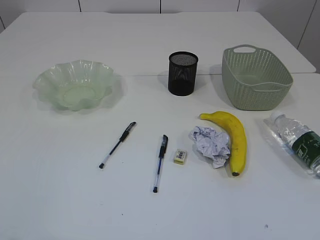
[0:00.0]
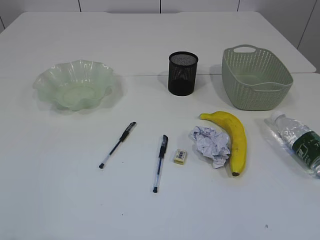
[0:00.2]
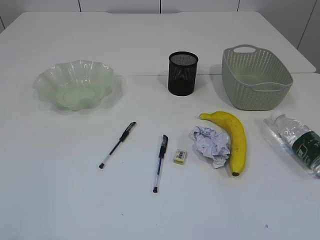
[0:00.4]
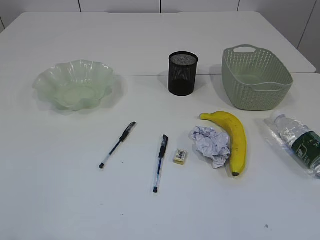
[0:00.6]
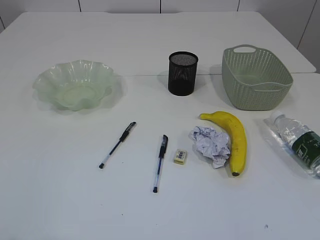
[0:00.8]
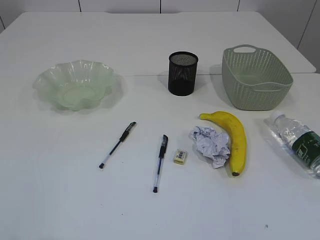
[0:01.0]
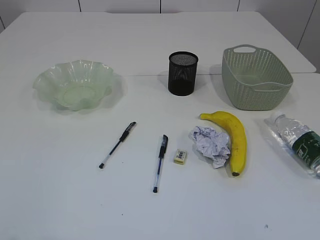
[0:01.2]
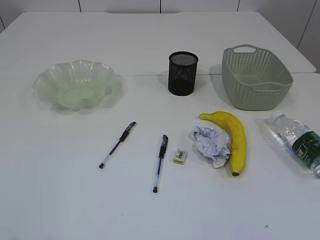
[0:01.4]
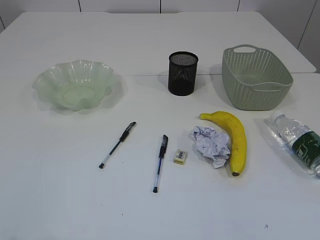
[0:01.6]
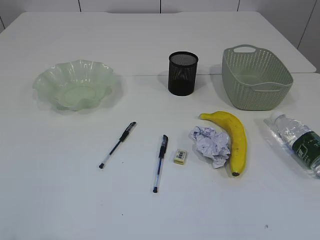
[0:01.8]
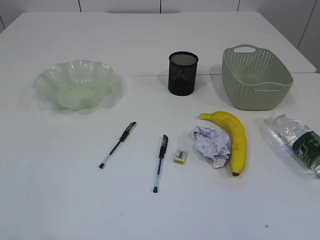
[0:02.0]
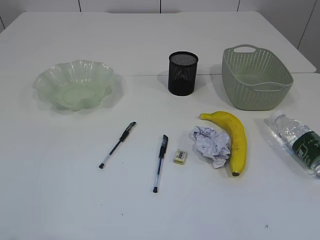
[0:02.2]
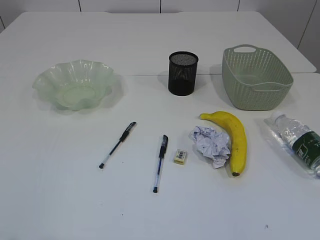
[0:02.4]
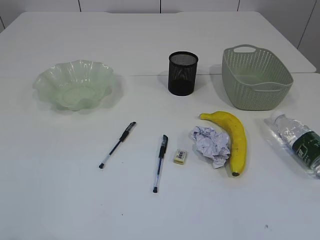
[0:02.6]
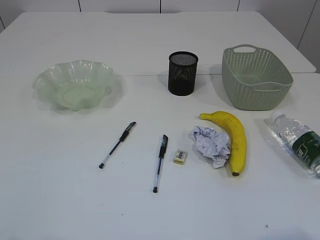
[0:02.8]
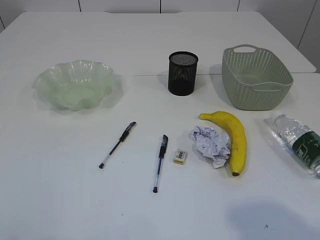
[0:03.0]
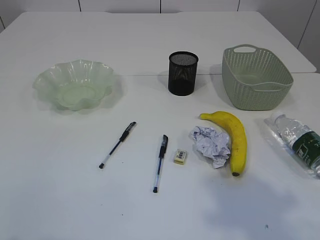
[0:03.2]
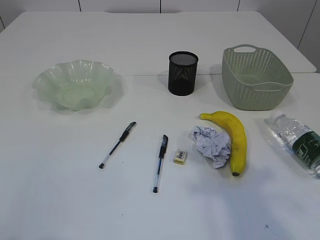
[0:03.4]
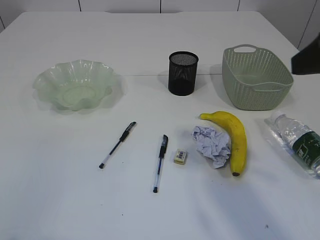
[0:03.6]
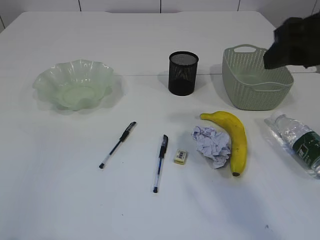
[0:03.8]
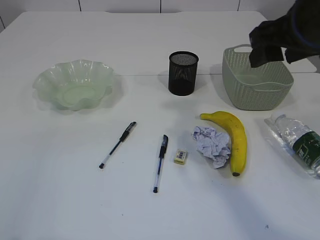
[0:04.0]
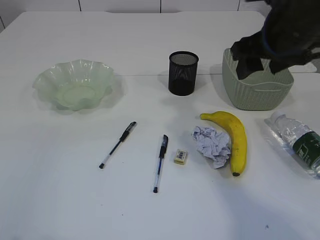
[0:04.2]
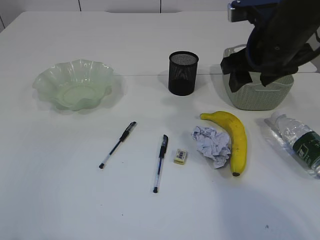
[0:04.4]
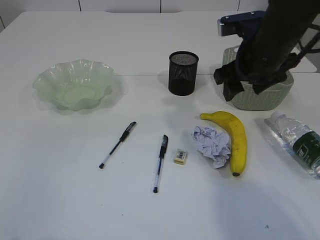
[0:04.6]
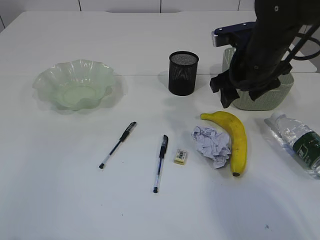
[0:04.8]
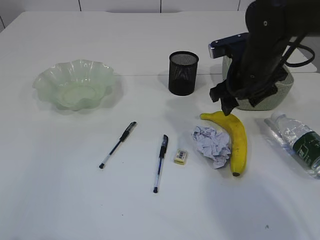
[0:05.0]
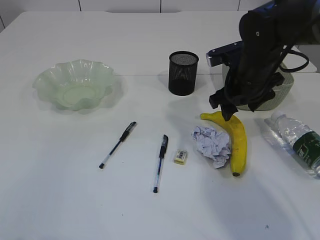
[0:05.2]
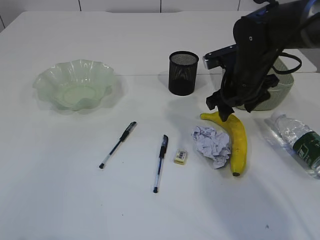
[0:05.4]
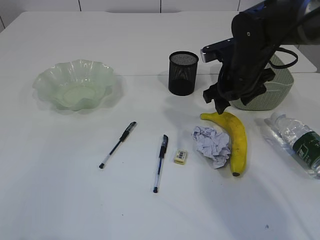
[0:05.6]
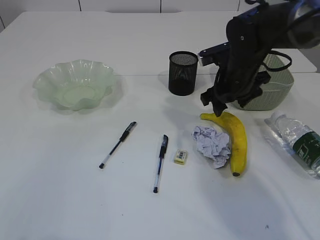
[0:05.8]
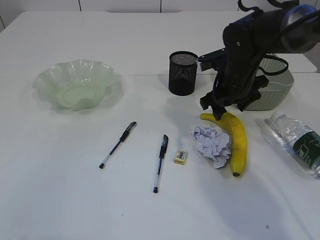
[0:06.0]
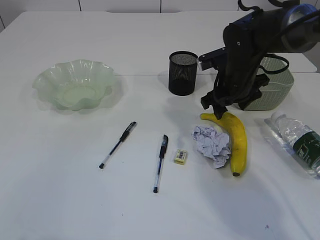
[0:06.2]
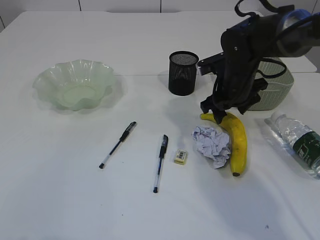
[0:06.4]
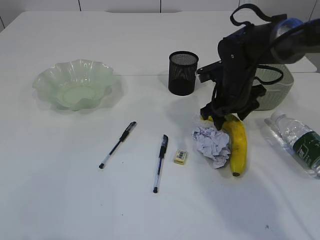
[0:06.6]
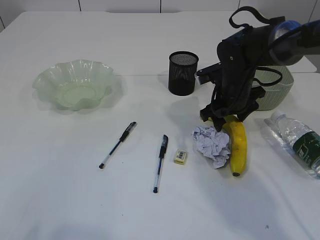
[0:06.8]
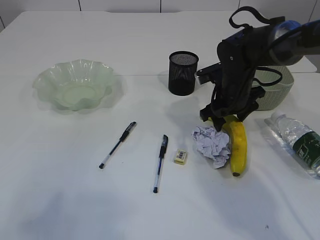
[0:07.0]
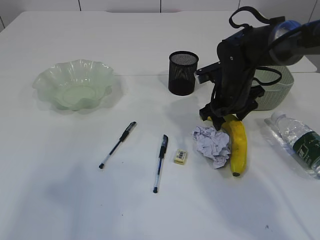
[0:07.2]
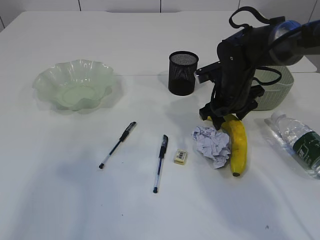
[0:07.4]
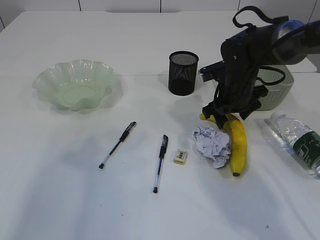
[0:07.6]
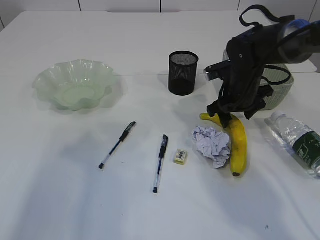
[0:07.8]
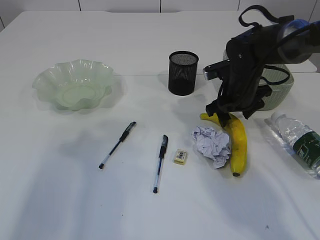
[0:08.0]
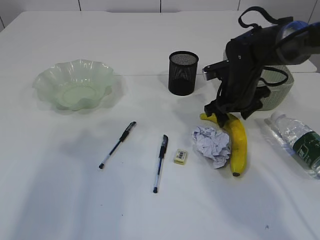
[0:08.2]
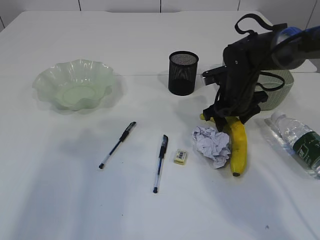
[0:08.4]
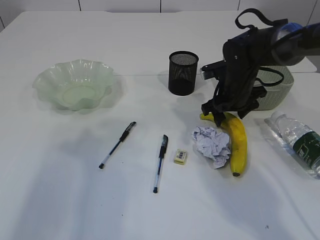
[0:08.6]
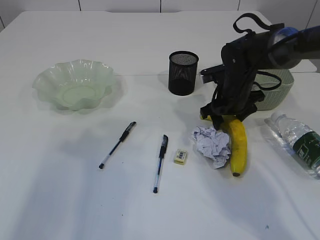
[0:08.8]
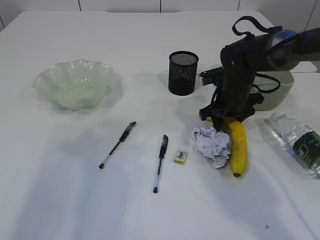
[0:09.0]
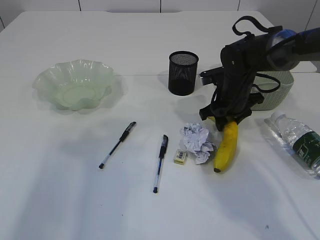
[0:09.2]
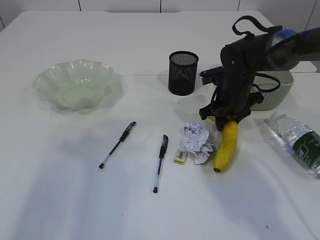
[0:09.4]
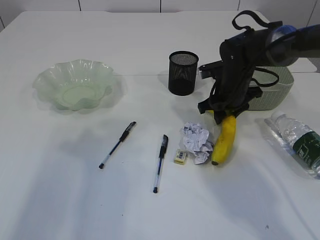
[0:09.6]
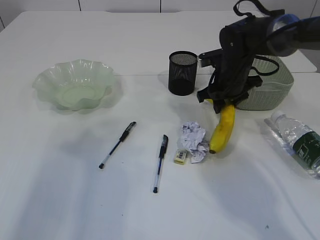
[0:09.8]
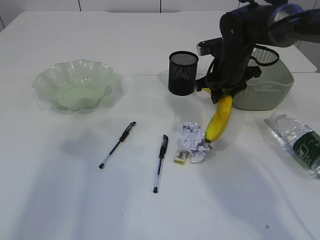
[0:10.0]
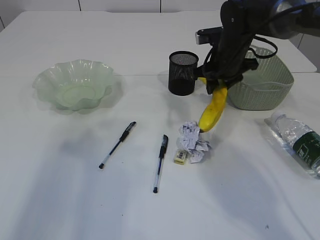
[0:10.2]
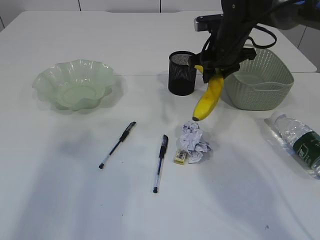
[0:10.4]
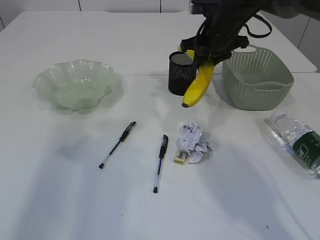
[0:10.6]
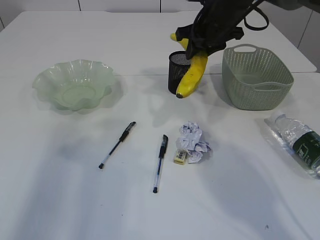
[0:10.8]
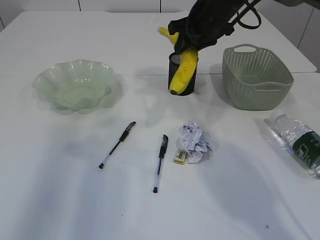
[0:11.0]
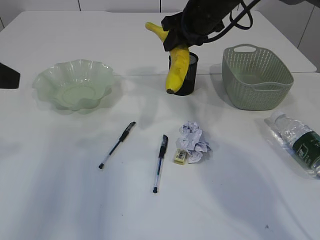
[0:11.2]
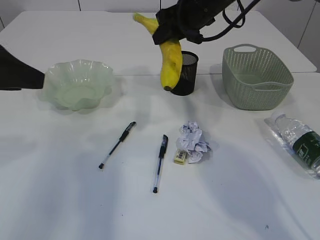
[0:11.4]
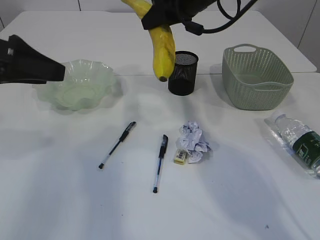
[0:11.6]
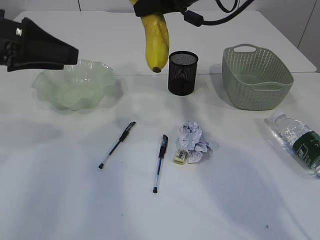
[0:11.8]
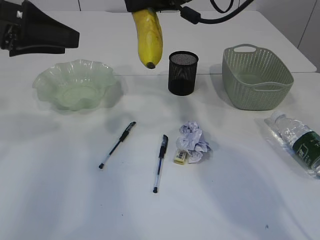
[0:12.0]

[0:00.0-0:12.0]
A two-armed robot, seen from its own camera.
0:01.6 to 0:03.0: The right gripper goes approximately 10 cm upward.
0:03.0 to 0:04.4: The right gripper travels forward by roughly 30 cm.
0:04.4 to 0:06.0: The right gripper travels downward and forward by about 15 cm.
0:06.0 to 0:07.6: The left gripper is displaced forward and upward by some 20 cm.
0:07.6 to 0:09.0: There are only small adjustments of the grippers.
0:09.0 to 0:10.4: The right gripper shifts some 10 cm upward.
0:10.4 to 0:12.0: The left gripper travels forward and to the right by some 10 cm. The right gripper travels upward and to the left by some 15 cm.

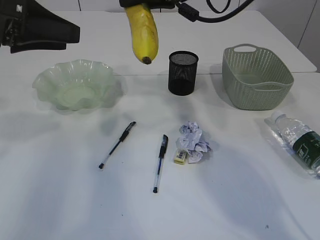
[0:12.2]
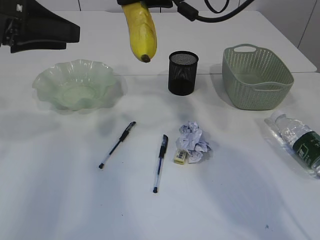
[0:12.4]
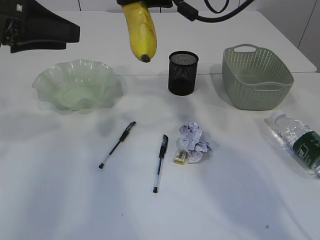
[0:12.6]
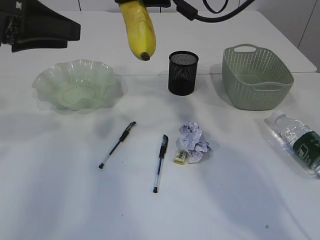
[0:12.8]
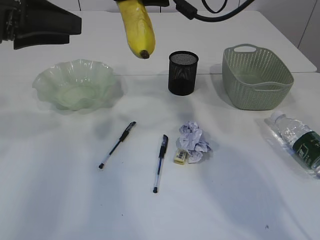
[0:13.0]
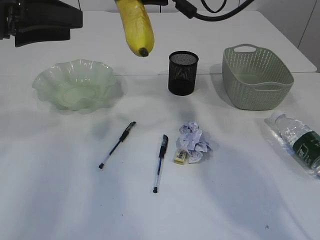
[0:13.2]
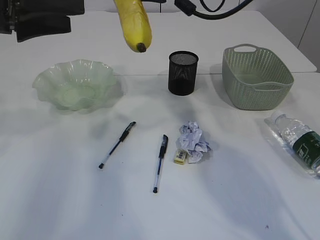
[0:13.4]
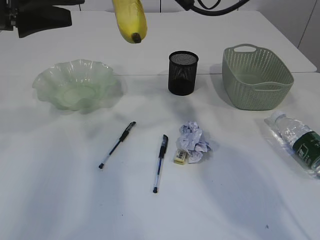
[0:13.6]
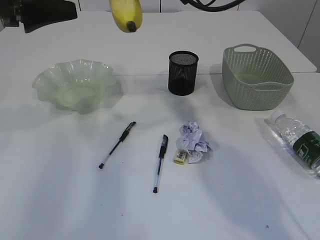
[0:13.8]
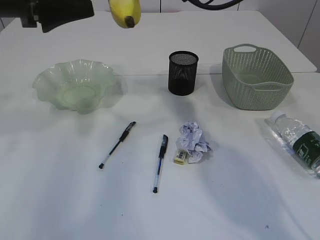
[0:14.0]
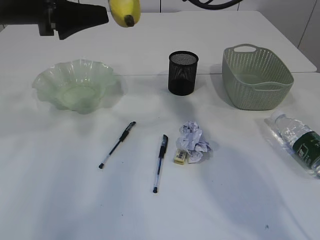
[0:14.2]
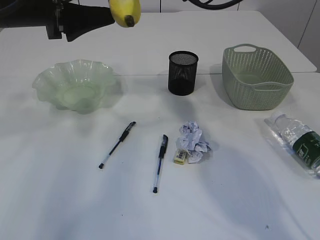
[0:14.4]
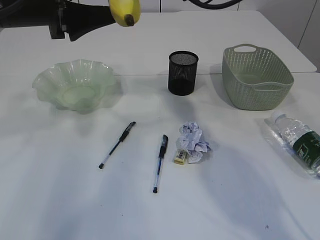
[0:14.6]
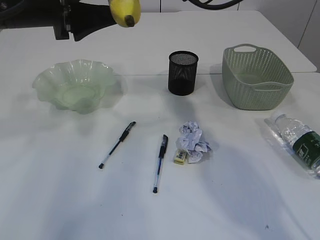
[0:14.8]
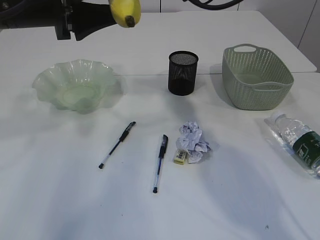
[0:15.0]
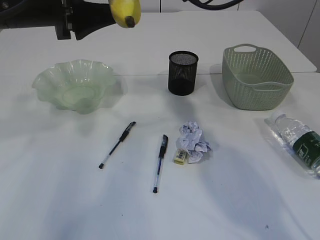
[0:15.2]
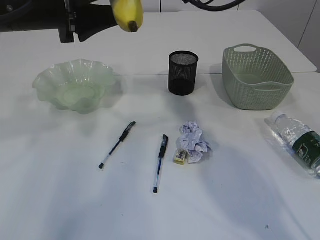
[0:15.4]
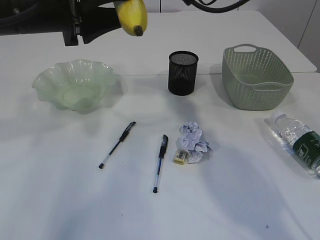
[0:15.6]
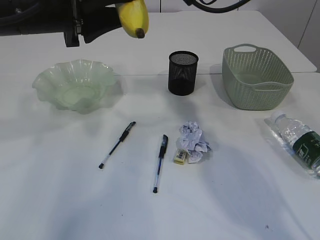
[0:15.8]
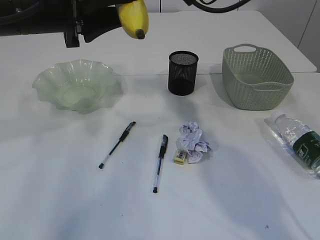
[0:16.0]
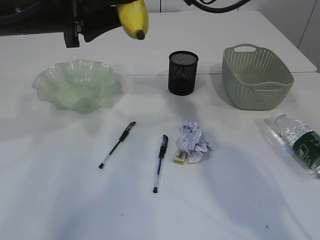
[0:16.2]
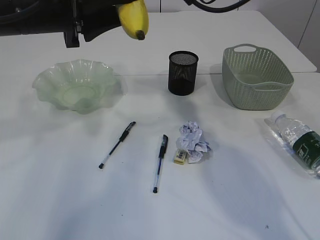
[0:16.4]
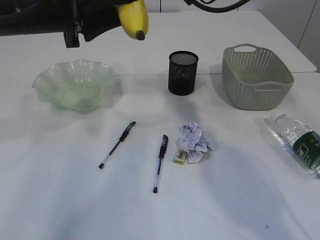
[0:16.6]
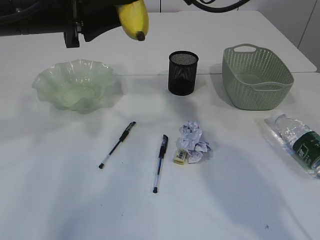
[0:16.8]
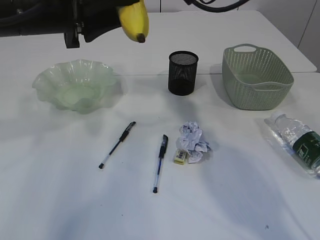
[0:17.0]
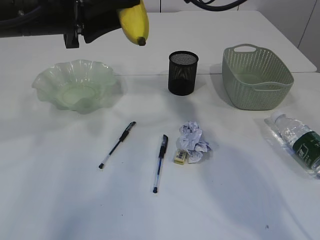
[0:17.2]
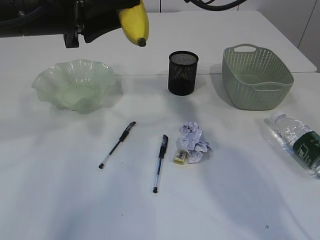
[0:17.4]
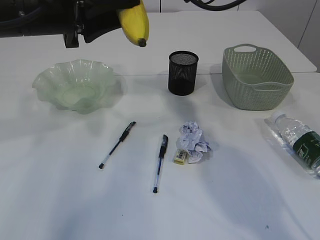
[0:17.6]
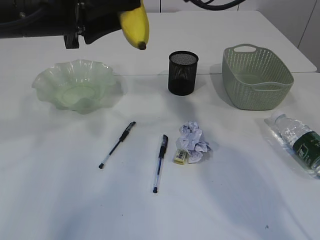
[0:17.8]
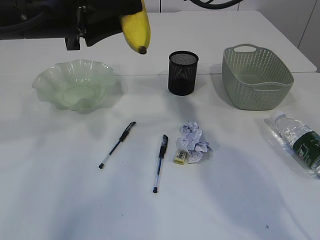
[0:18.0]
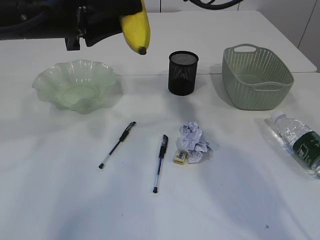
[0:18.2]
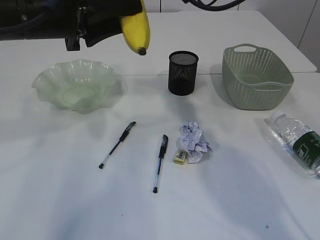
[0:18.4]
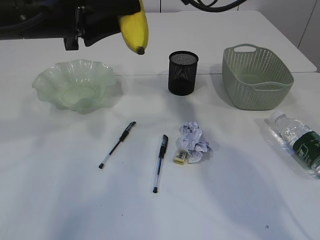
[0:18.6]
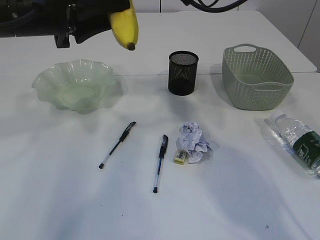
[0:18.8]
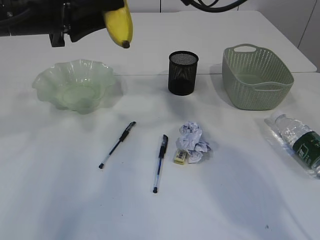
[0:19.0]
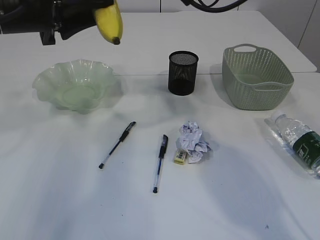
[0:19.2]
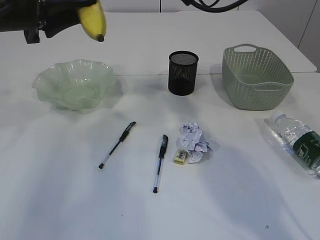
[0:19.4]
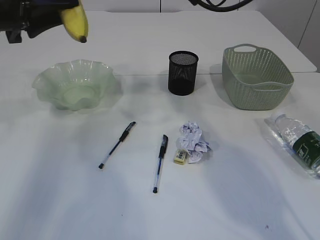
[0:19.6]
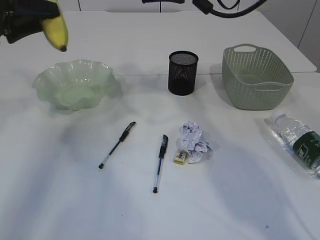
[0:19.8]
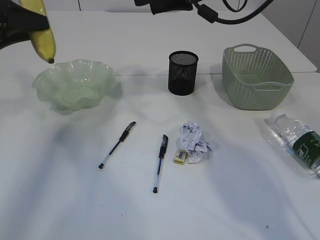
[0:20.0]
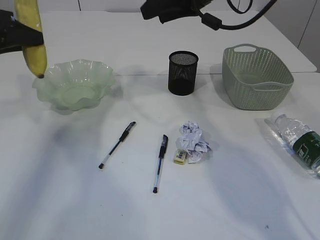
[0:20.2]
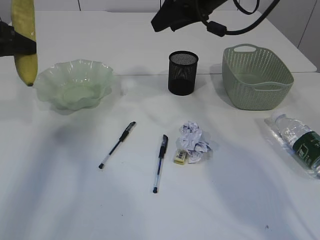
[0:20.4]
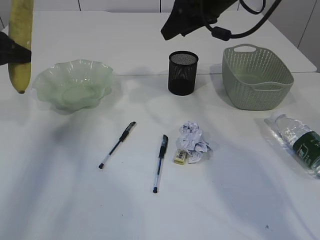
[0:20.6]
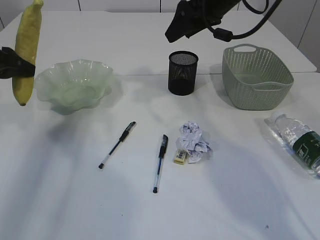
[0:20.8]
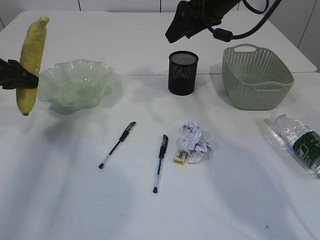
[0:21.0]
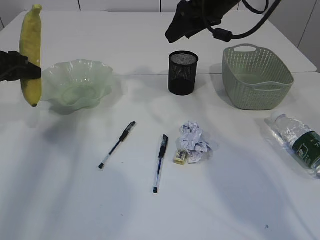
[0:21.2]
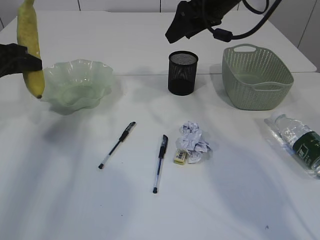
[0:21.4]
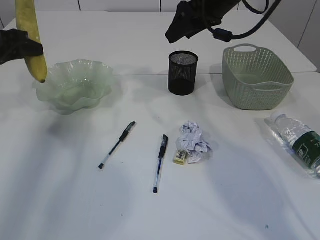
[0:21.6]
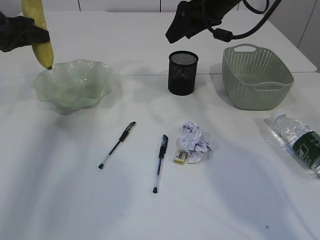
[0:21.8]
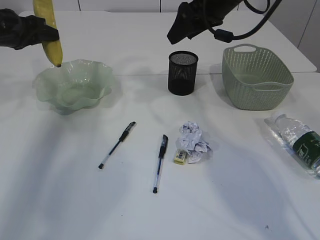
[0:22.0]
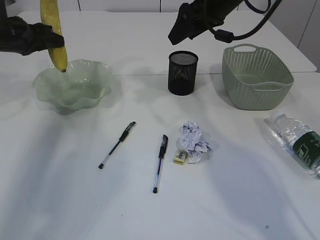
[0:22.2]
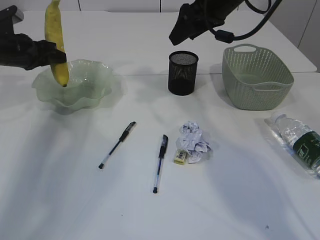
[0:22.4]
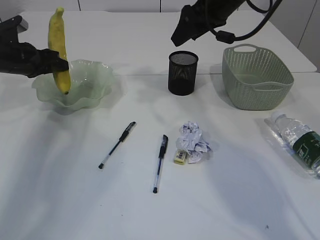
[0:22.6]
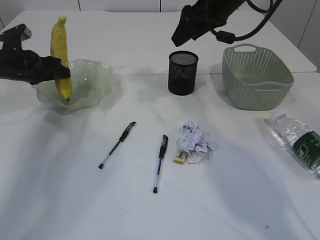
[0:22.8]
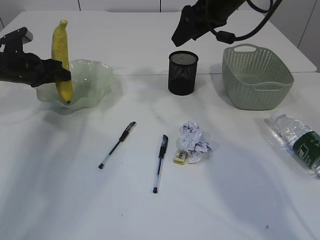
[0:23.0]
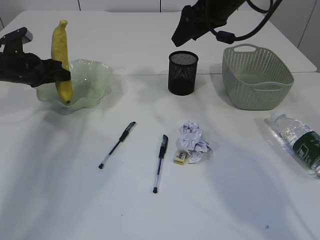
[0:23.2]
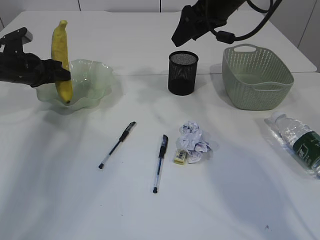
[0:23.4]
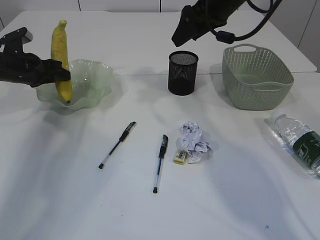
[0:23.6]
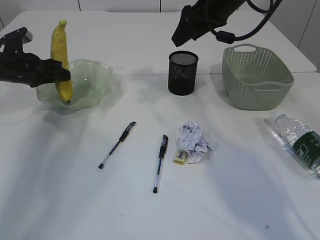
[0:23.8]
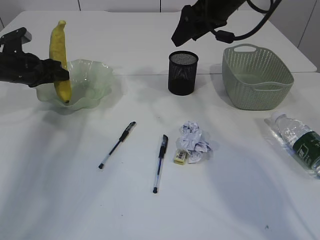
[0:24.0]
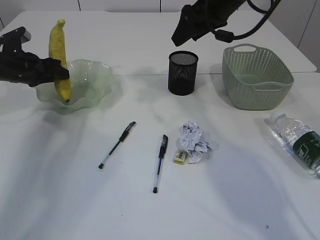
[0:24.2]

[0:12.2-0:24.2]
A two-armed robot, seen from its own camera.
Step, 0:12.2 to 0:19.2: Hand over the banana.
0:12.2 to 0:13.8: The left gripper opens up.
0:13.8 to 0:15.2: The left gripper shifts approximately 5 cm to the right.
0:15.2 to 0:16.6: The left gripper closes up.
0:16.6 to 0:18.2: The right gripper opens its fingers.
0:18.2 to 0:19.8: The left gripper goes some 10 cm to the left.
0:19.8 to 0:21.2: The right gripper ends up some 5 cm from where it was. Meanwhile the left gripper heads downward, covering roughly 10 cm.
0:21.2 to 0:22.6: The left gripper is displaced forward by some 10 cm.
0:22.6 to 0:24.2: The grippers make only small movements.
